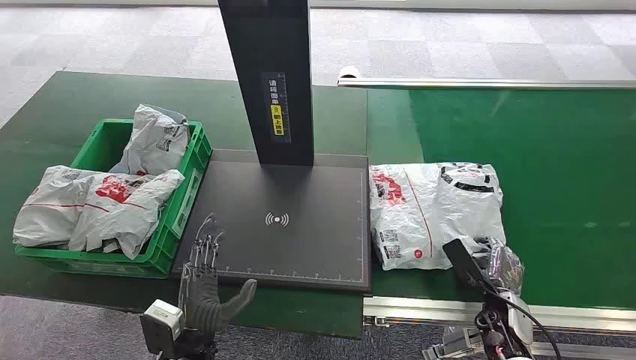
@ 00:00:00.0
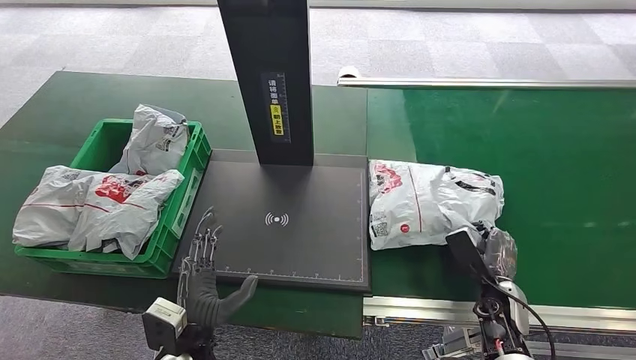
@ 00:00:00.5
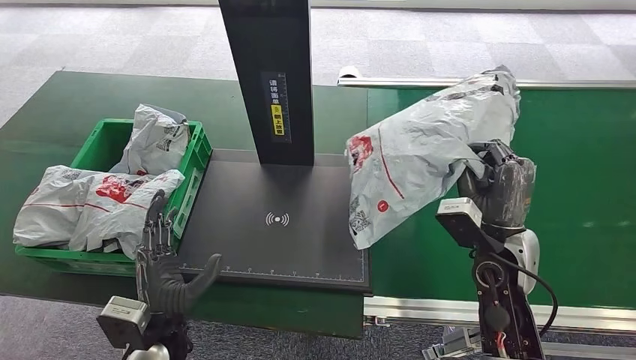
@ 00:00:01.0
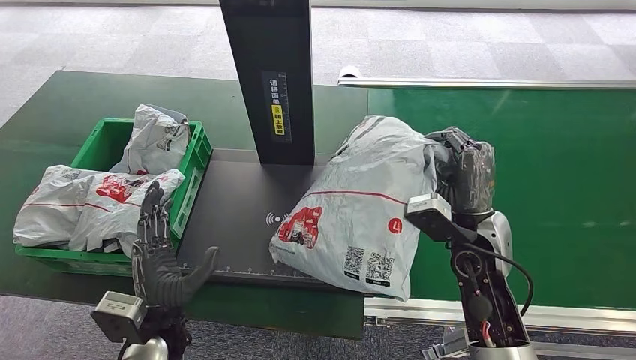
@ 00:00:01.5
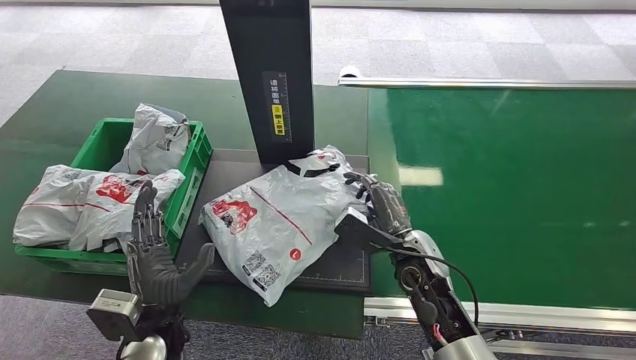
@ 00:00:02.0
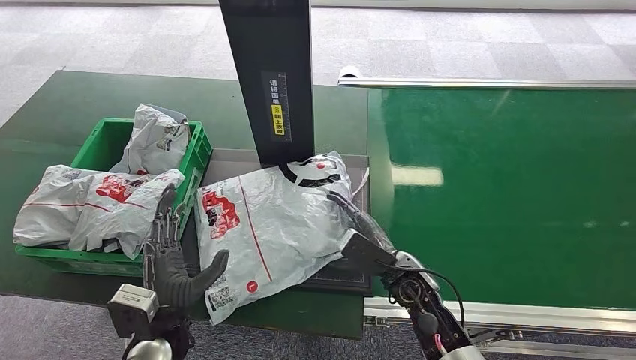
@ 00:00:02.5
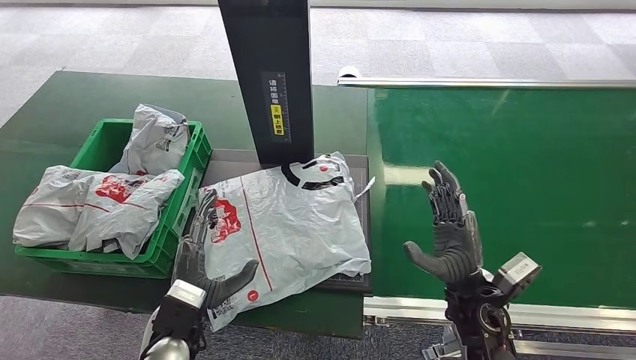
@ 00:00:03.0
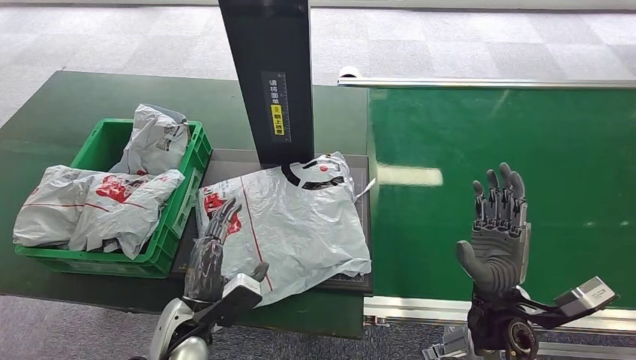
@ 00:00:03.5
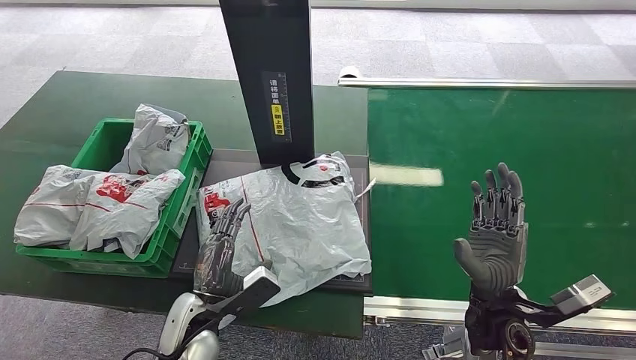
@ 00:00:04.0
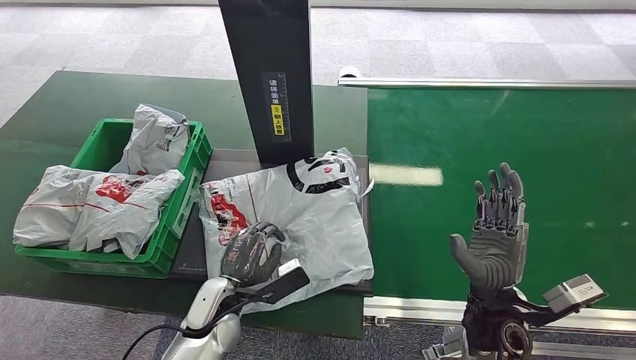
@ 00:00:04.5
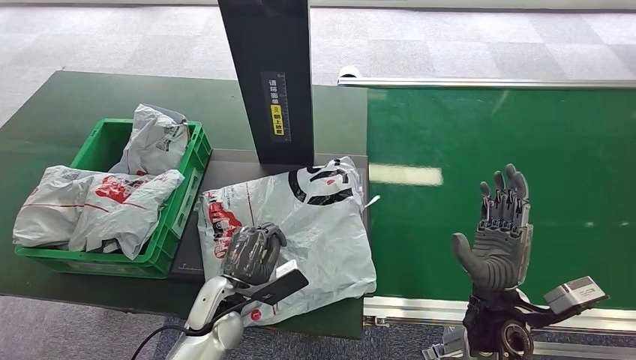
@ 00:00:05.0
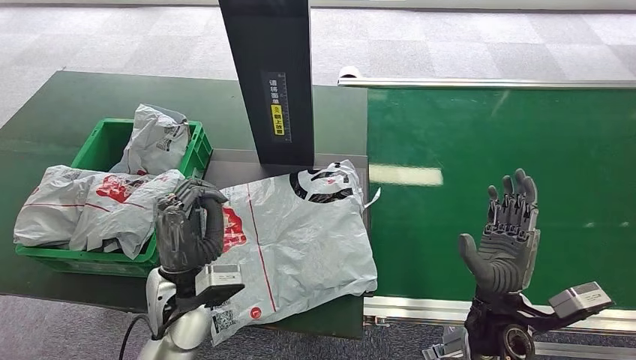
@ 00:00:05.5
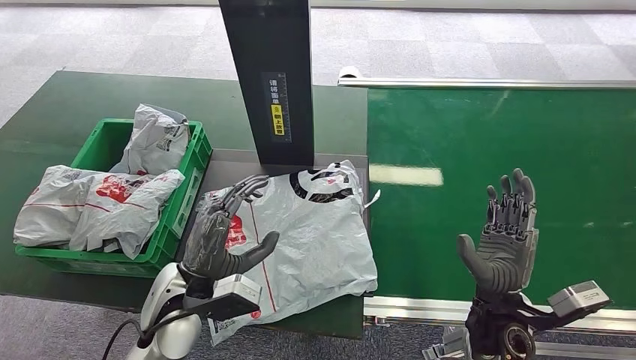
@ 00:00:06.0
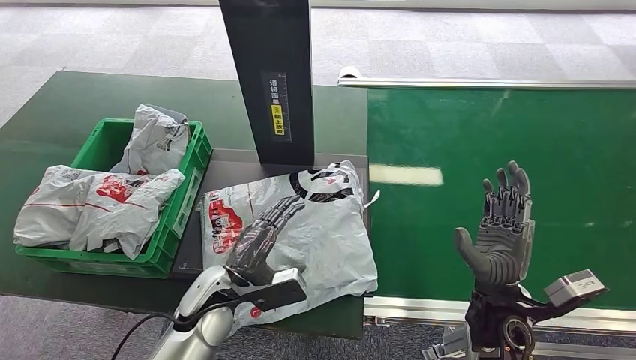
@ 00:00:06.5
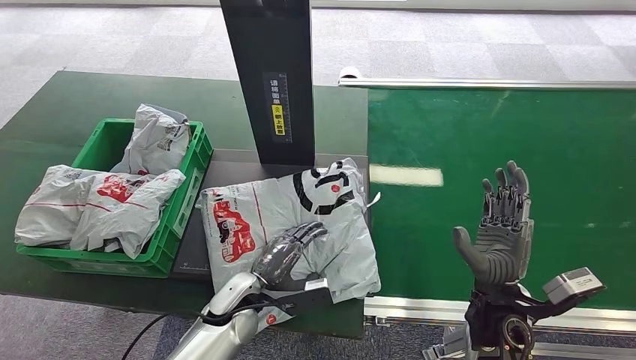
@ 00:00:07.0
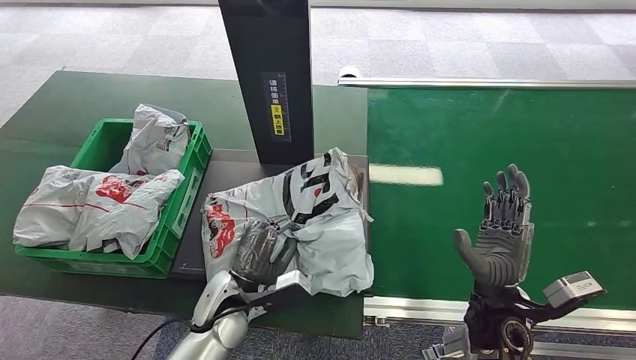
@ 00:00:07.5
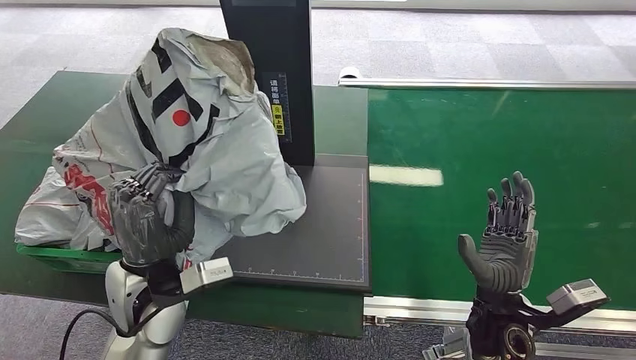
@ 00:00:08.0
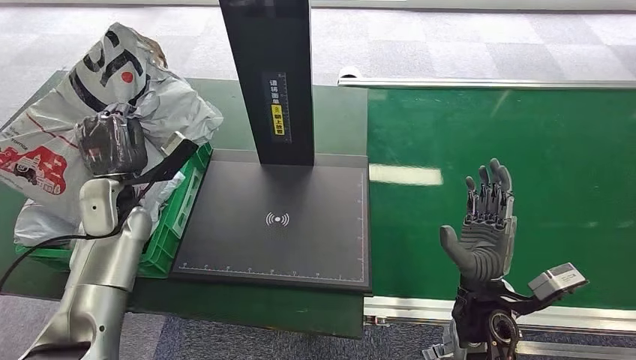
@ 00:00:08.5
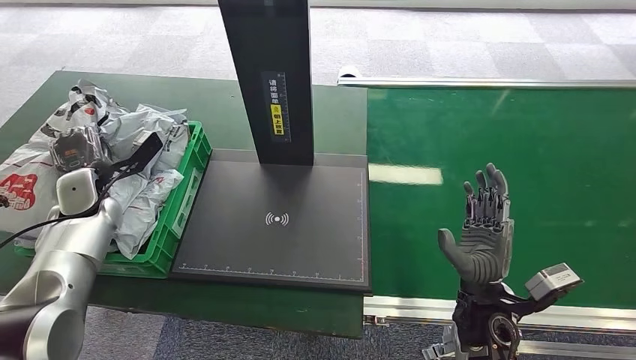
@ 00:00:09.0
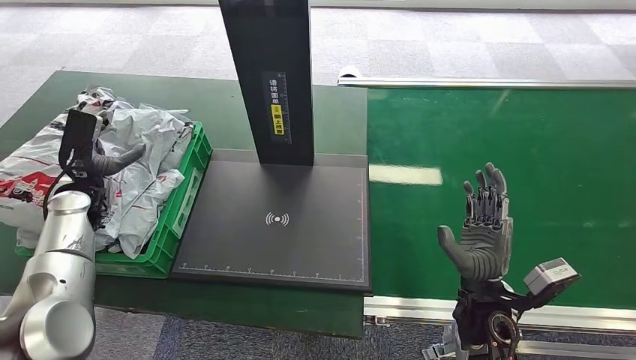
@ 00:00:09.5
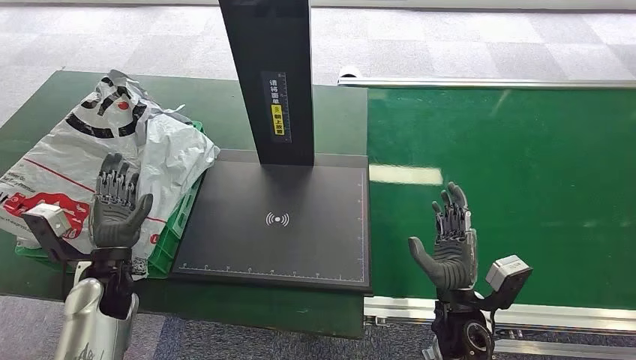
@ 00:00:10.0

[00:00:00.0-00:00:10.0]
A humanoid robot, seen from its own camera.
Task of the whole recording: Weigh the package on the weighing device and place it in the left basket.
Step, 00:00:00.0 to 00:00:01.0: Pick up the package from the conveyor belt.
Step, 00:00:01.5 to 00:00:03.5: Place the package onto the inbound machine.
Step, 00:00:04.0 to 00:00:08.0: Pick up the package from the inbound machine.
Step, 00:00:08.5 to 00:00:10.0: Place the package into the parcel locker.
00:00:02.0 to 00:00:04.0: The left hand changes place by approximately 5 cm. Meanwhile the right hand travels to the right and backward by roughly 10 cm.
00:00:04.0 to 00:00:06.0: The left hand is displaced upward by roughly 10 cm.

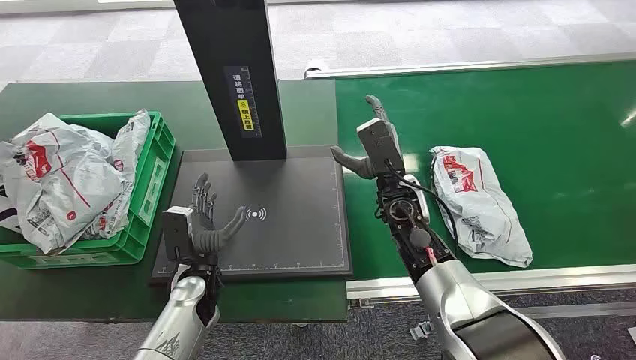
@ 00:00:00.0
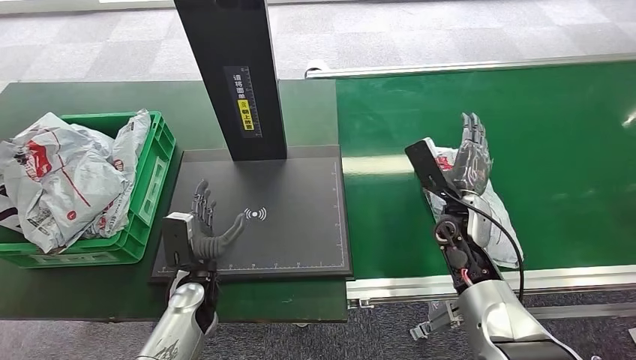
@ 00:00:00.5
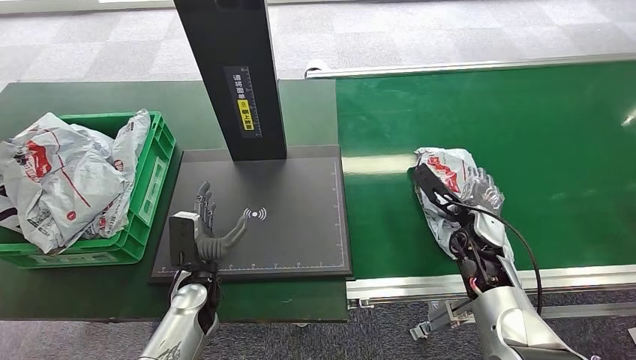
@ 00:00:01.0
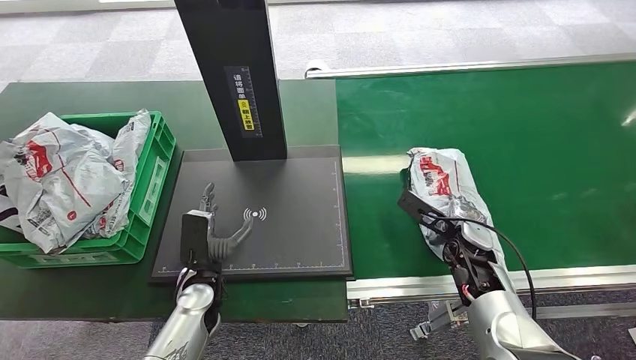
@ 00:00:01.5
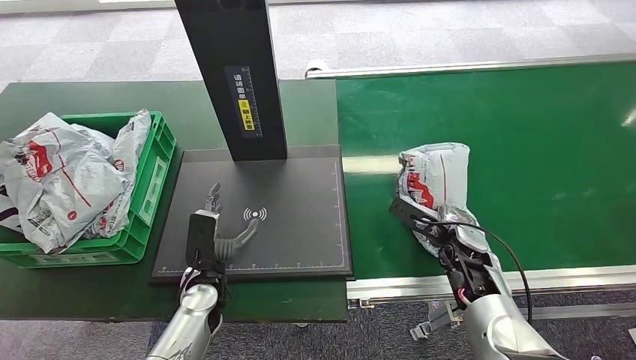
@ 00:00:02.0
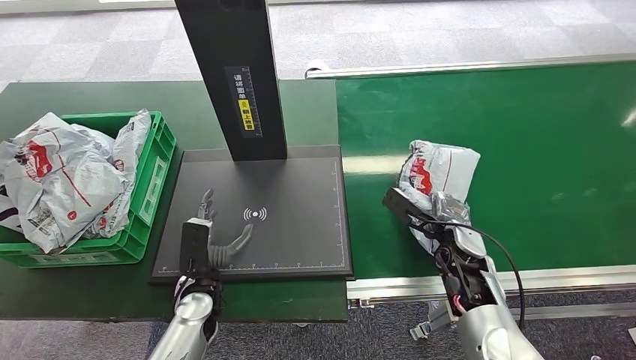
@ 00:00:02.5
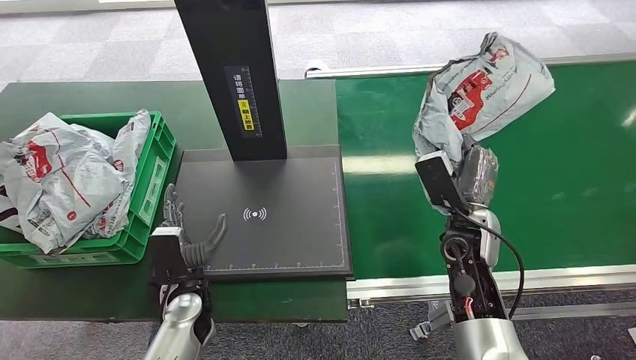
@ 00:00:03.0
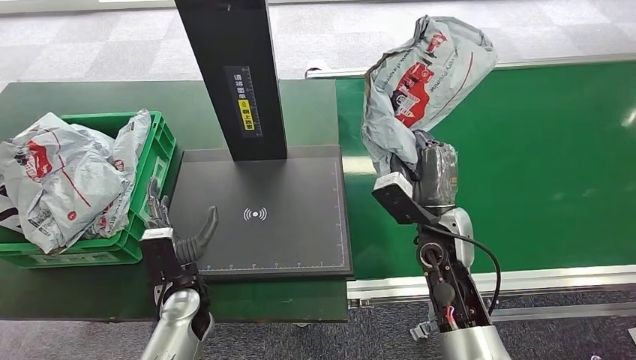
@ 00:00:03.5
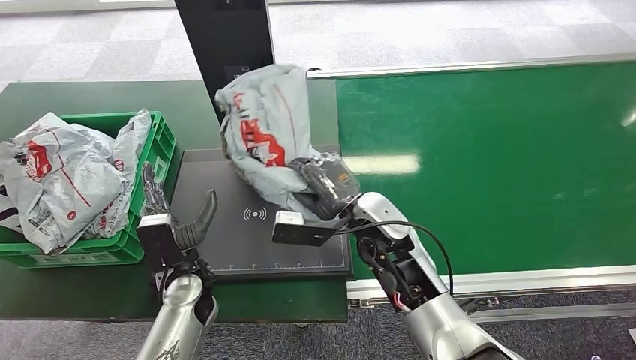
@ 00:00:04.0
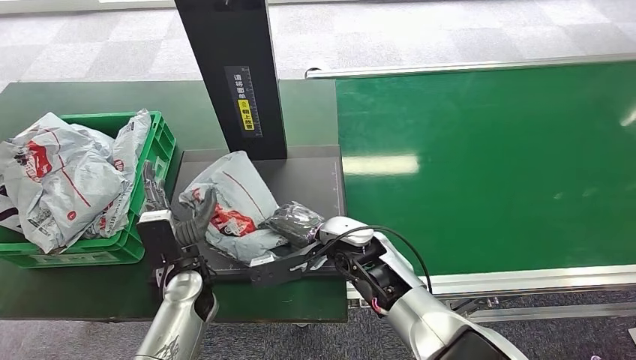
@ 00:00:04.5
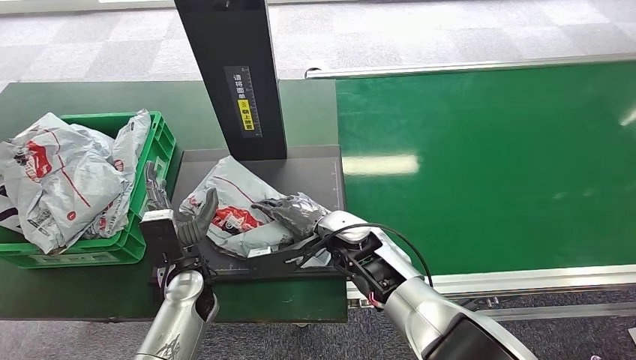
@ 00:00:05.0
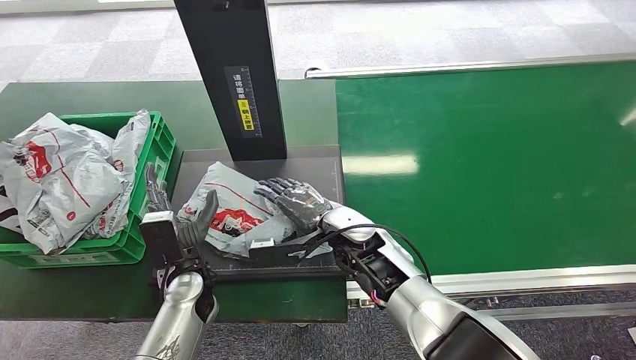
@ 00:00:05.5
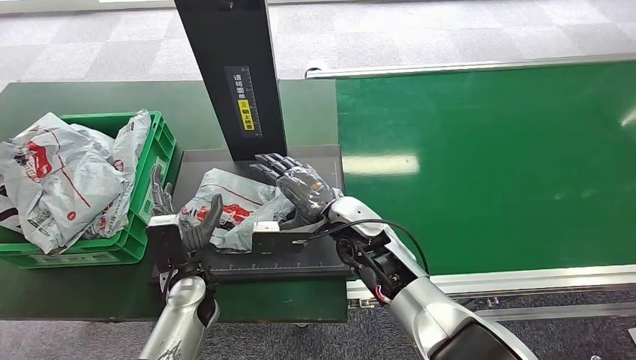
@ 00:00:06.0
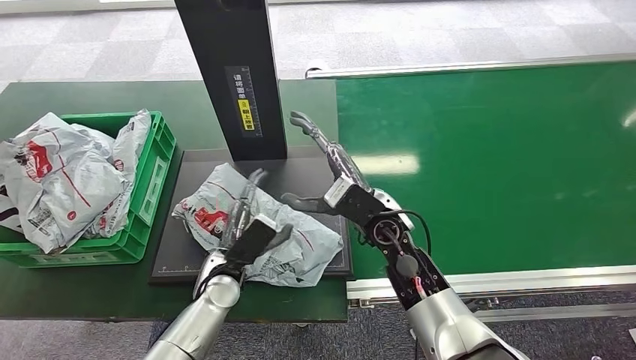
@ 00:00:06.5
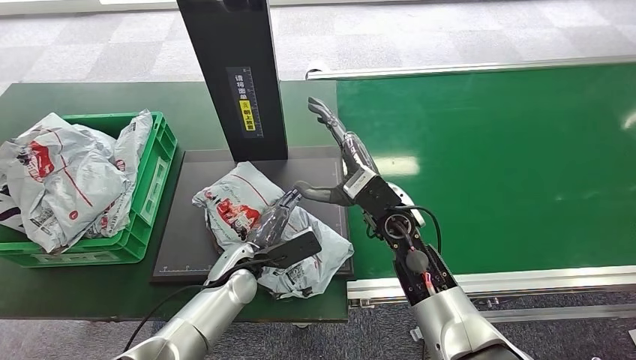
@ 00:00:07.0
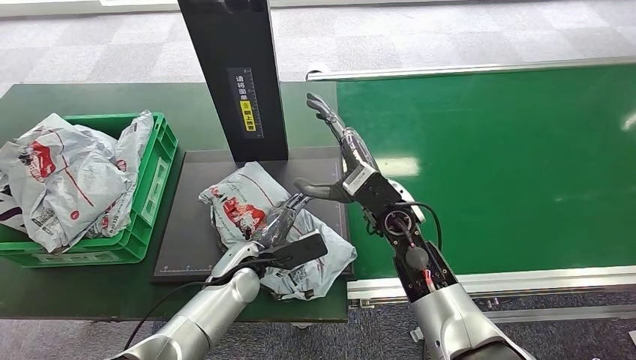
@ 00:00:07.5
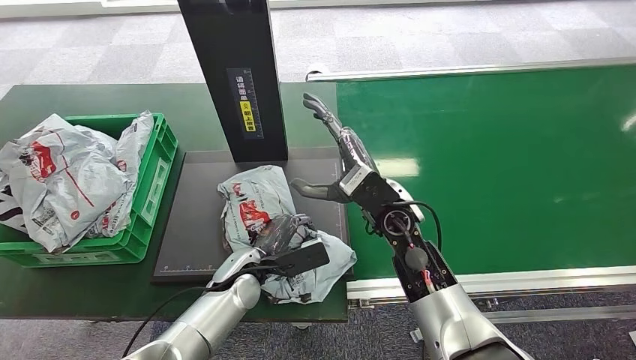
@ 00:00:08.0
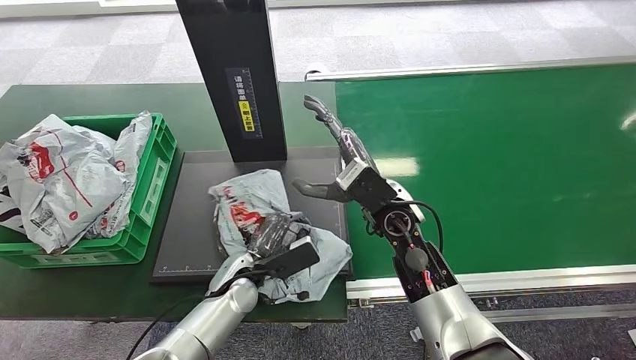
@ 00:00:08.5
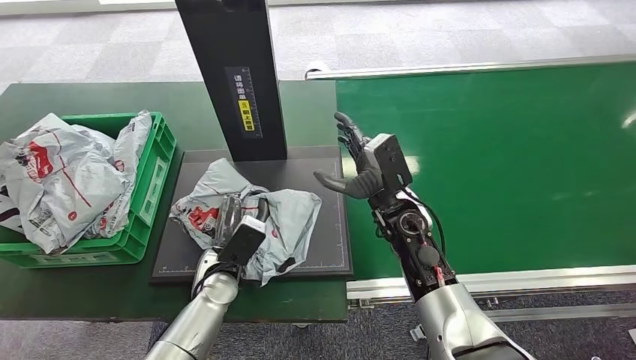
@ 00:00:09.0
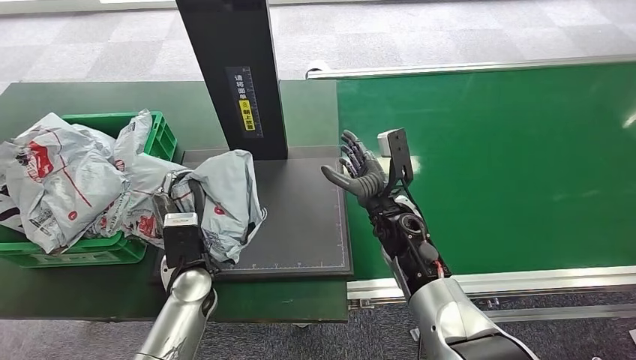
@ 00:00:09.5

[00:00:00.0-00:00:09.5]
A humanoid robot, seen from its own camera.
Task of the whole recording: Weigh the package on the weighing device and place it in the left basket.
Step, 00:00:00.0 to 00:00:03.5: Pick up the package from the conveyor belt.
Step, 00:00:04.5 to 00:00:06.5: Place the package onto the inbound machine.
